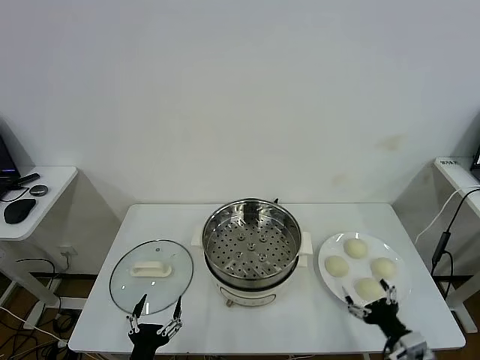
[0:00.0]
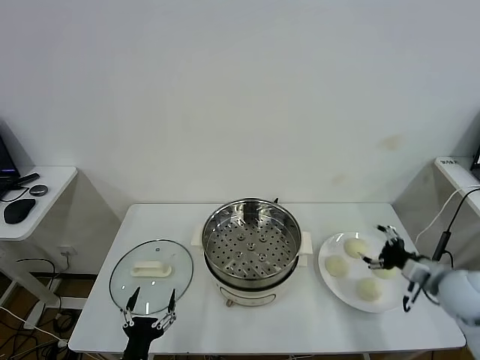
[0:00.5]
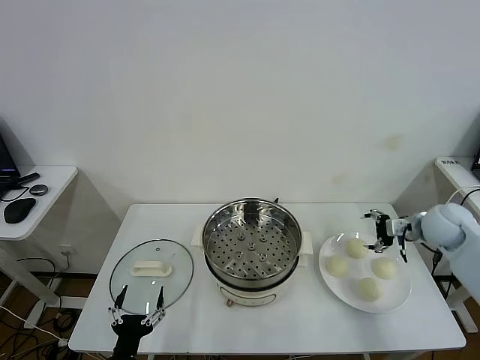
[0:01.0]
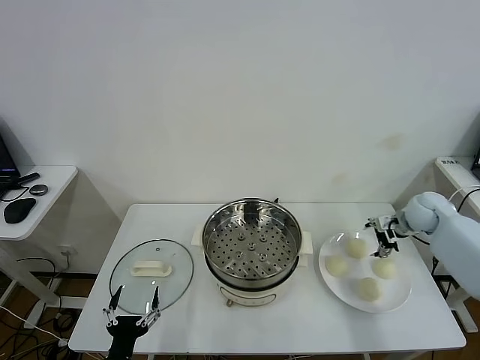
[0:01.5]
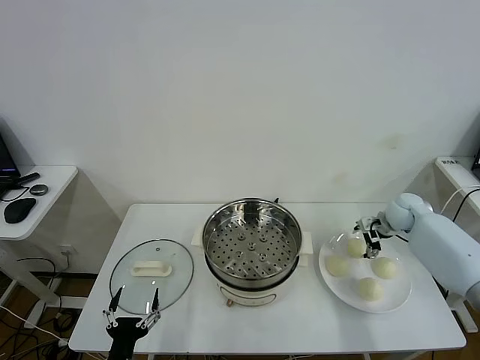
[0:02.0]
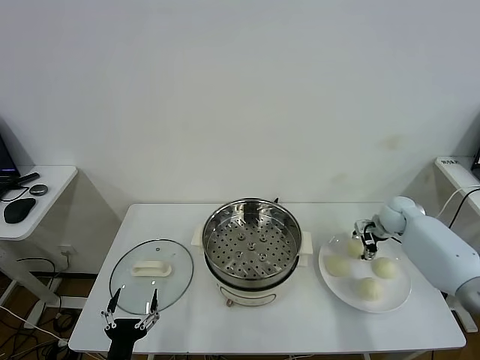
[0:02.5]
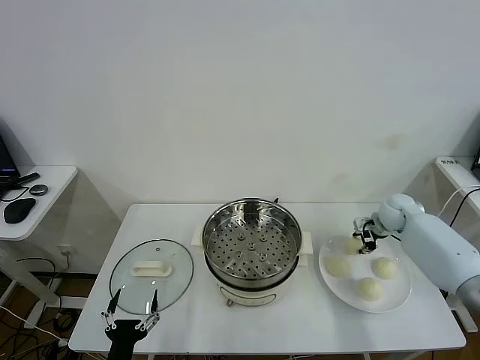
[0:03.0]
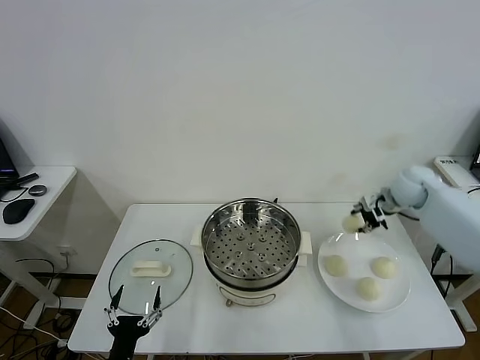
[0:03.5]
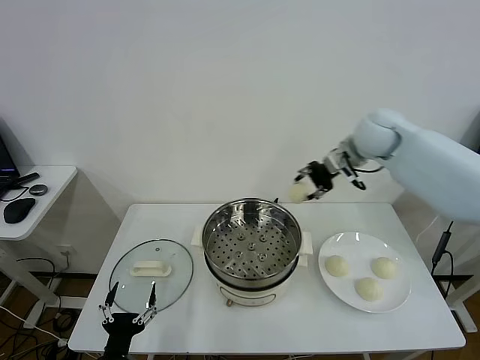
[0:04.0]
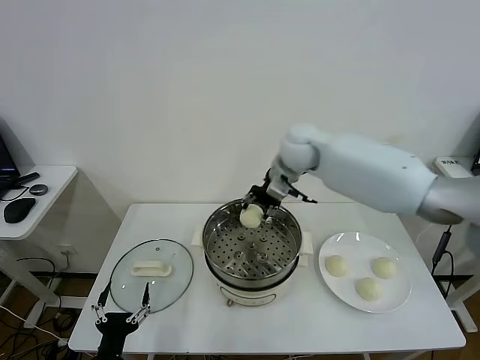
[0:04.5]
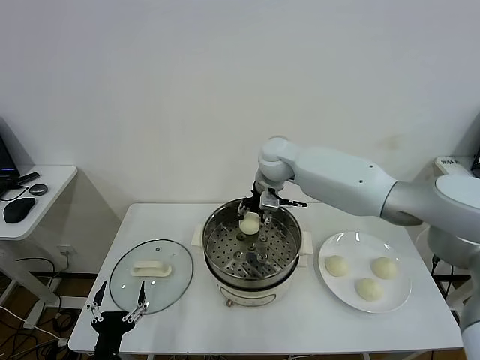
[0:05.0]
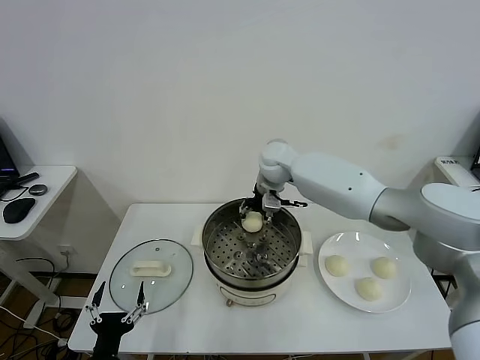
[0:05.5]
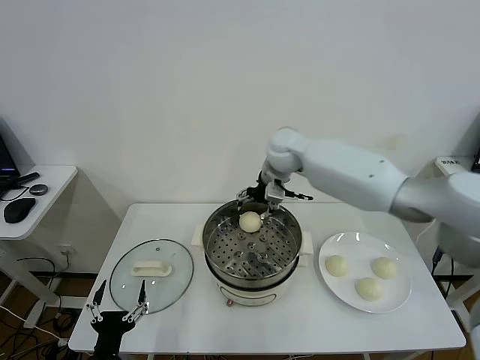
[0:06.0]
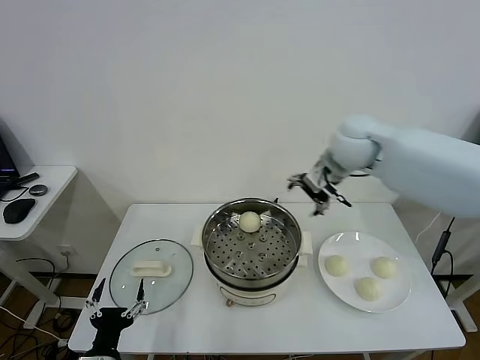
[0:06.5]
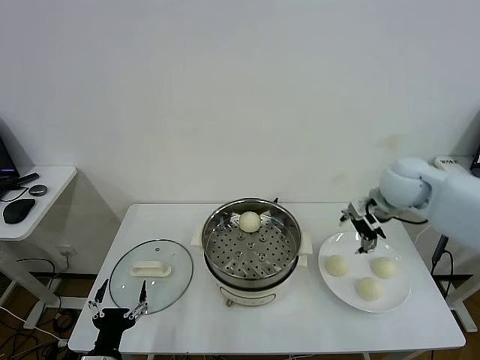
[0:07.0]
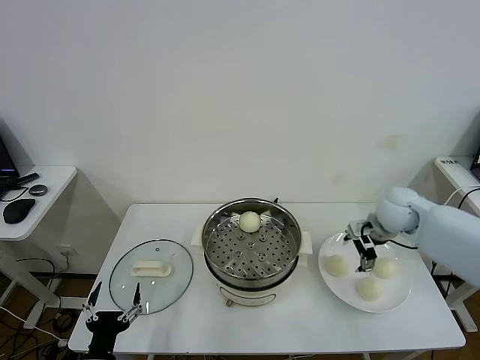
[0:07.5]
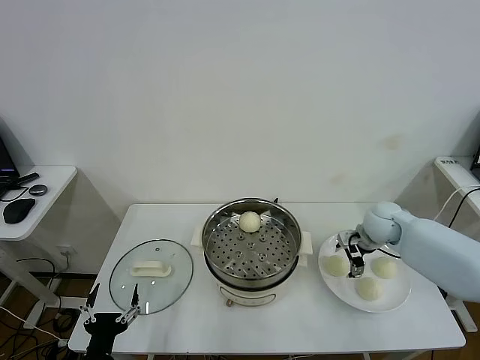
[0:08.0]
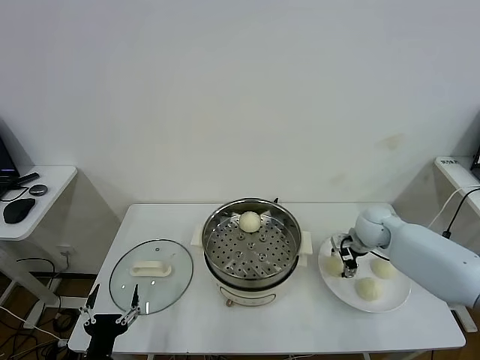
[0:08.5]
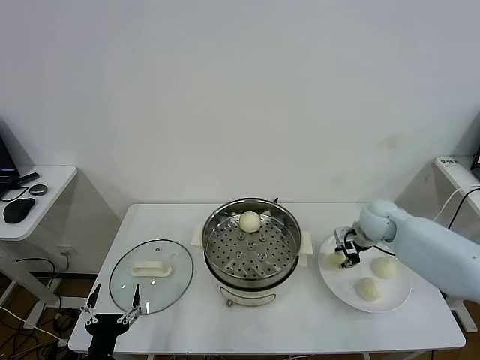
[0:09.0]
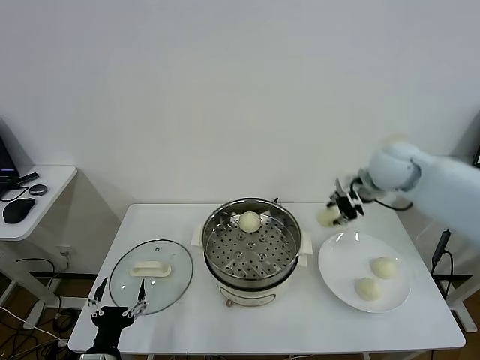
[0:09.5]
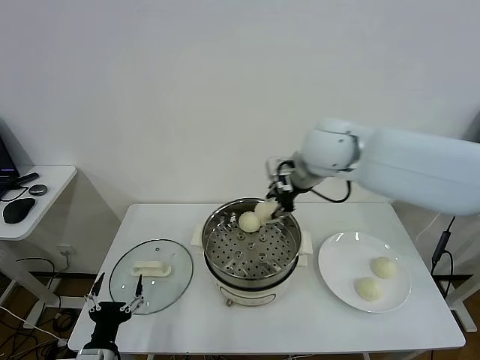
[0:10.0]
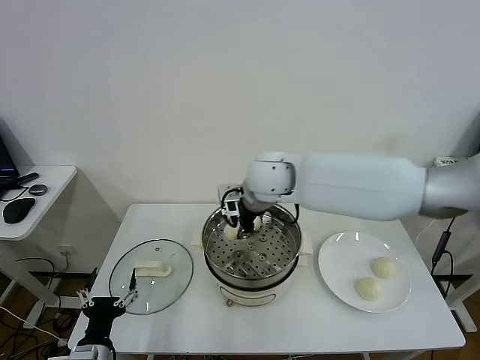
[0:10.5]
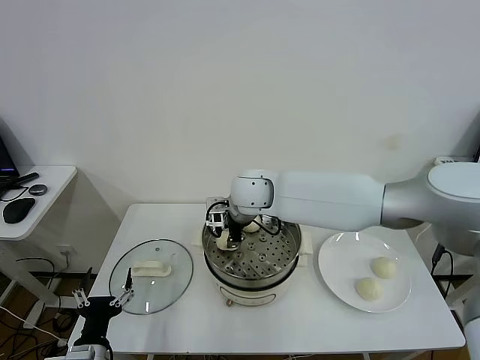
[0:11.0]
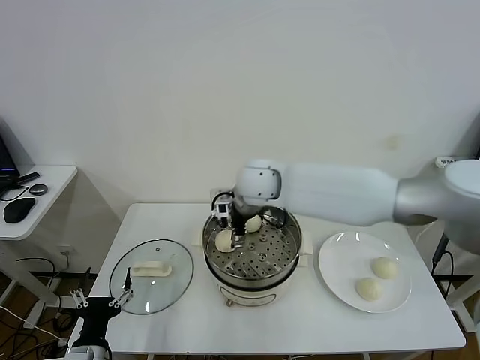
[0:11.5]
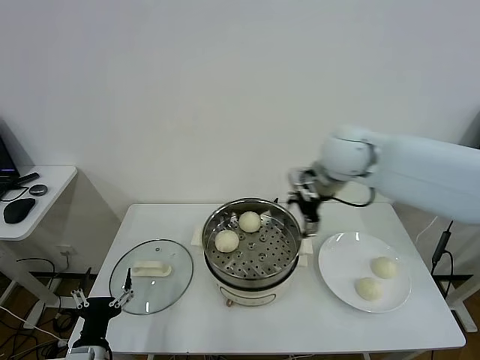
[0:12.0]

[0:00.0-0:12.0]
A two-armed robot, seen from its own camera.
Task of the whole recording: take steamed baozi put them in steamer.
Step, 0:00.0 to 0:02.5: Grasp the baozi in the plate with right gripper.
Step, 0:03.0 to 0:05.5: Place the baozi on the steamer with right gripper.
Step, 0:06.5 to 0:08.5: Grasp the baozi in the plate with right gripper.
Step, 0:09.0 to 0:11.0: Place the baozi on the steamer with right gripper.
0:02.0 to 0:04.0: The right gripper shifts approximately 30 cm upward and to the left, and closes its fingers.
0:04.0 to 0:06.0: The right gripper travels to the left by about 10 cm, and opens up.
0:06.0 to 0:08.0: The right gripper heads to the right and downward, covering roughly 30 cm.
0:08.0 to 0:10.0: The right gripper goes approximately 30 cm upward and to the left, and closes.
0:10.0 to 0:12.0: The right gripper is displaced to the right by about 10 cm, and opens its fingers.

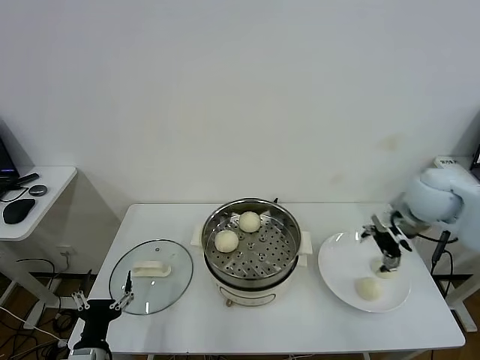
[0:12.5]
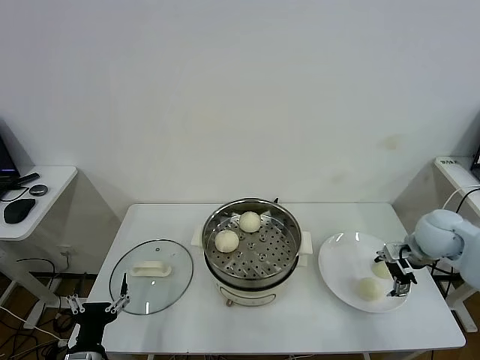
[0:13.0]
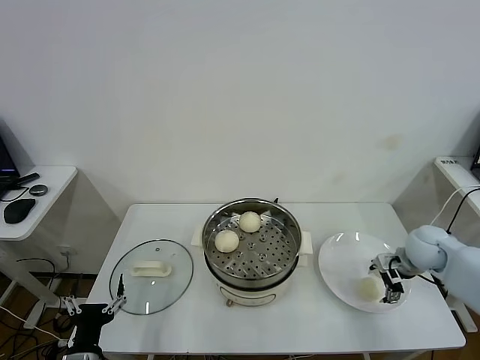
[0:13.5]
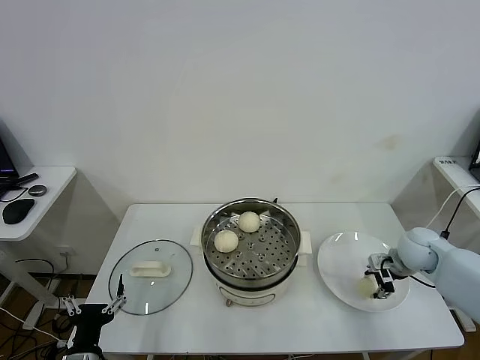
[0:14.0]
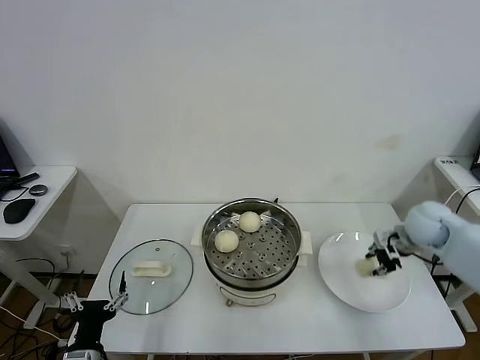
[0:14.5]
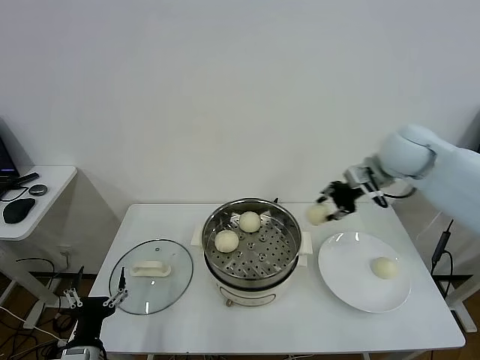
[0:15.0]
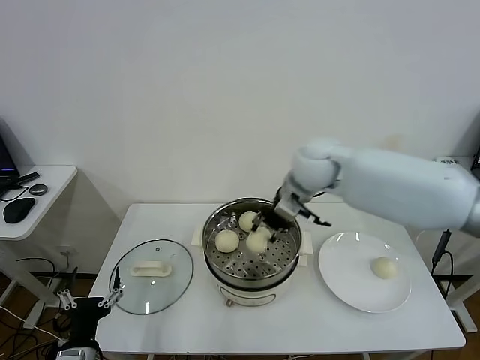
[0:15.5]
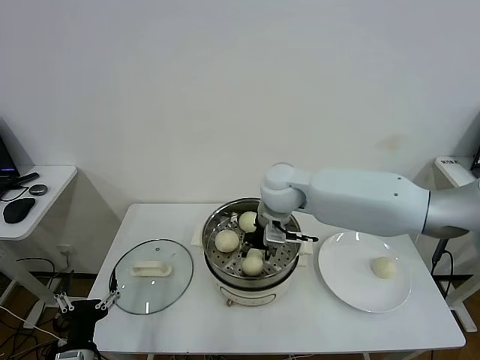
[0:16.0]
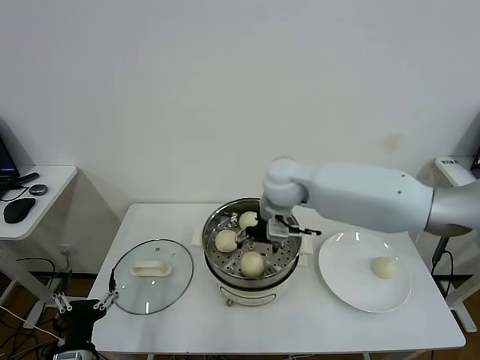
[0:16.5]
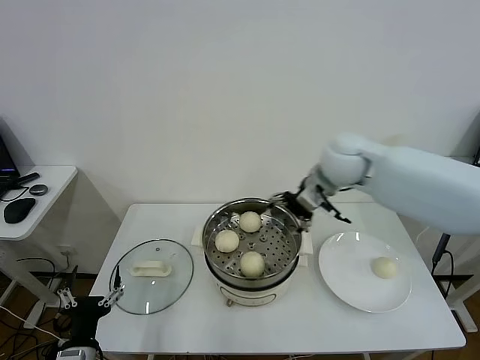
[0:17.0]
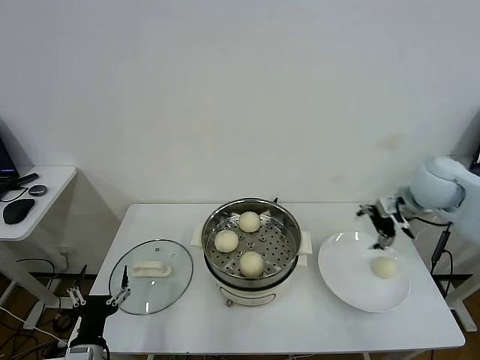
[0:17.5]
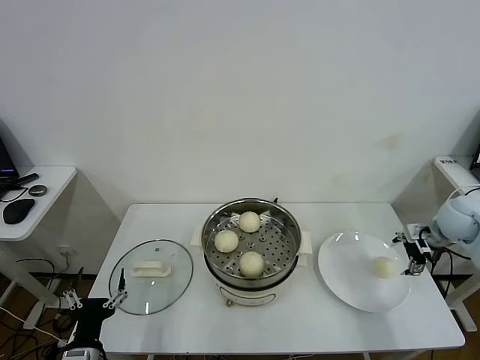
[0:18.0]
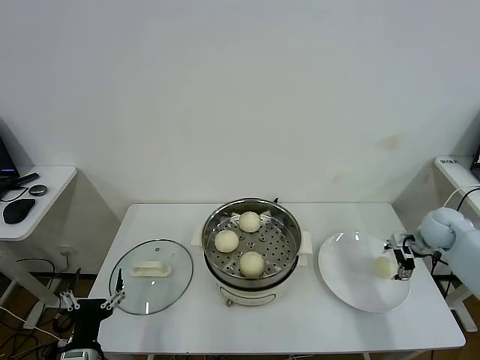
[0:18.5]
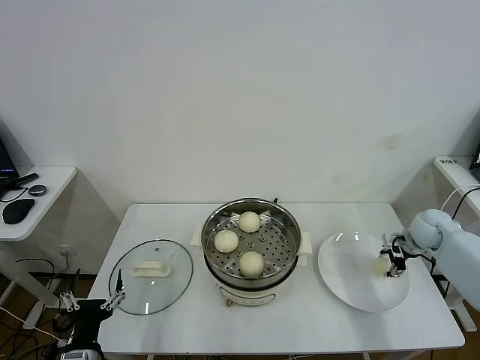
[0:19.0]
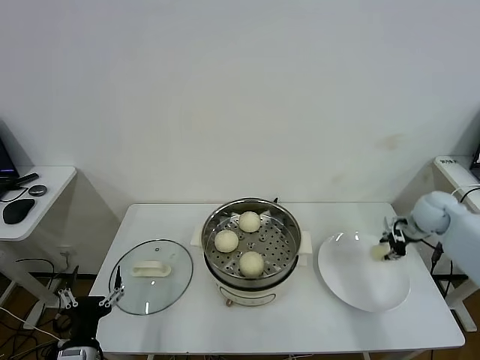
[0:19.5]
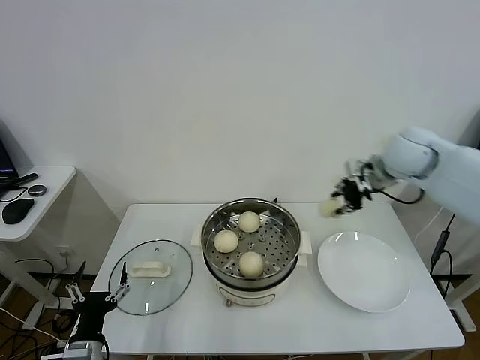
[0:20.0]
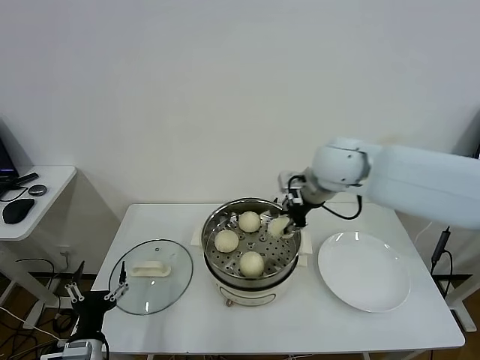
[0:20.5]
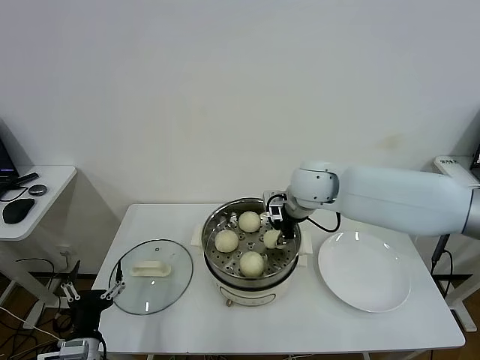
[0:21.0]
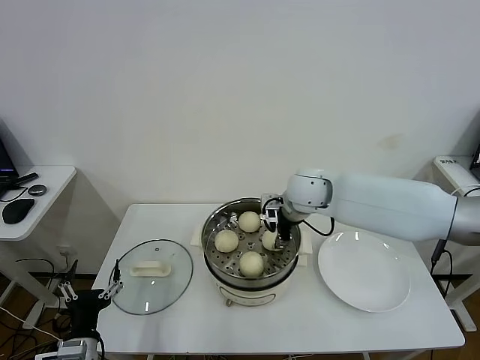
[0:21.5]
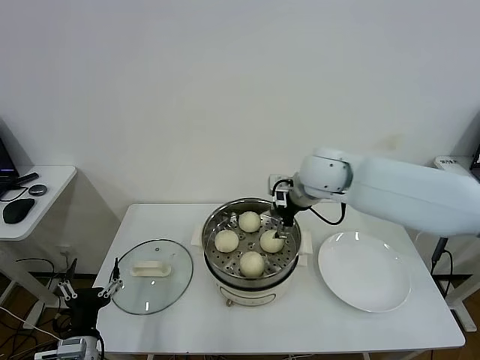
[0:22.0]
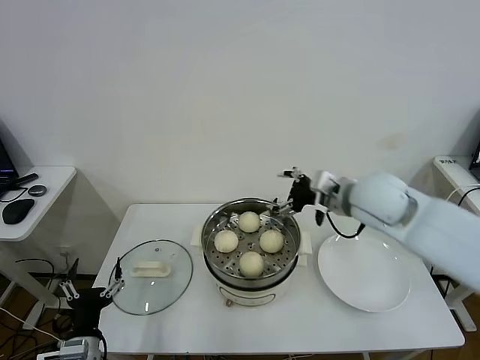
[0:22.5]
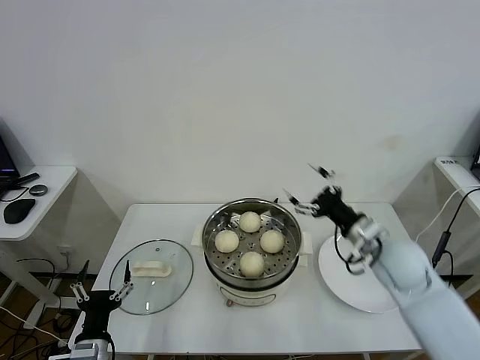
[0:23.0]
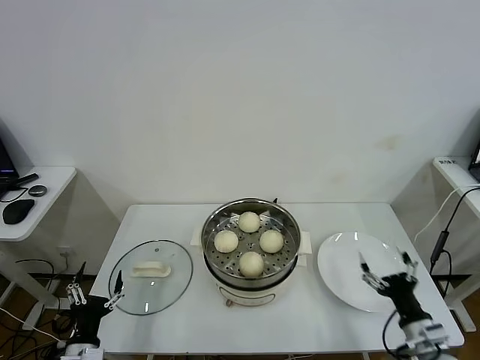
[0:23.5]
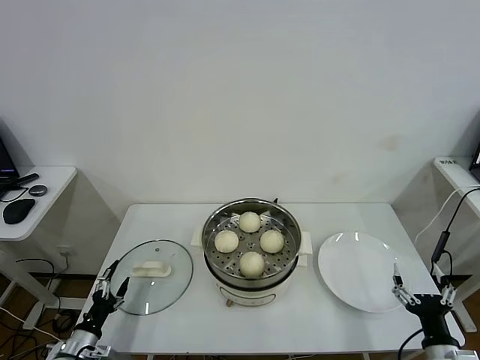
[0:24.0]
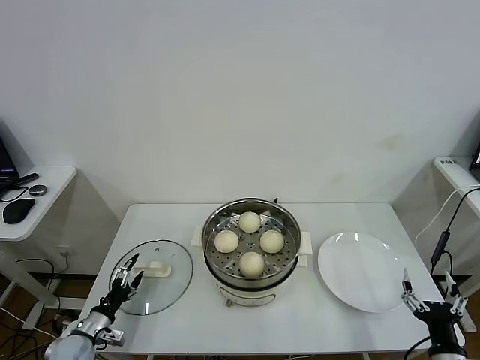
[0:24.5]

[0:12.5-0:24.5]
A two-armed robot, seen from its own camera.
Task of the whole recording: take steamed baozi put them in steamer.
Step, 0:12.5 to 0:14.0: Grasp the baozi in the plate with right gripper.
Step, 0:14.5 to 0:16.5: Place the baozi on the steamer with right gripper.
Step, 0:17.0 to 0:19.0: Grasp the baozi in the plate with right gripper.
Step, 0:19.5 to 0:21.5: Place the baozi on the steamer with right gripper.
0:12.5 to 0:14.5: The right gripper heads downward, covering roughly 5 cm, and closes up.
0:14.5 to 0:16.5: The right gripper is displaced to the left by about 30 cm, and opens.
0:16.5 to 0:18.5: The right gripper is displaced to the right by about 40 cm.
0:18.5 to 0:20.5: The right gripper is displaced to the left and upward by roughly 35 cm, and closes.
0:20.5 to 0:22.5: The right gripper is displaced to the right and backward by roughly 10 cm, and opens.
0:22.5 to 0:24.5: The right gripper is displaced backward, downward and to the right by some 40 cm, while the left gripper is displaced downward, to the left and forward by some 15 cm.

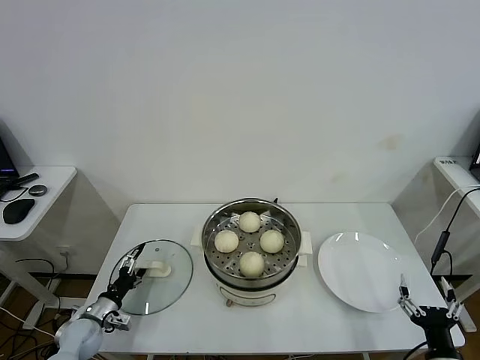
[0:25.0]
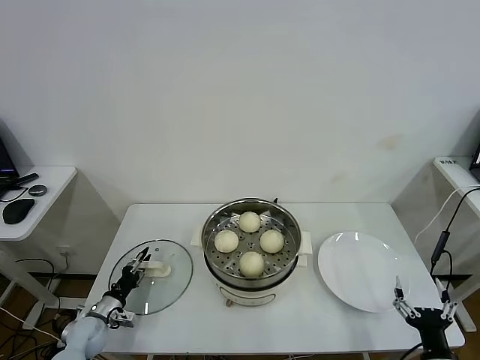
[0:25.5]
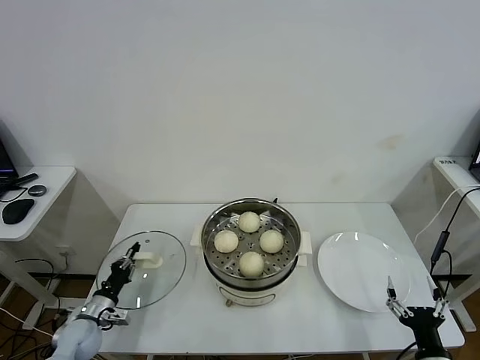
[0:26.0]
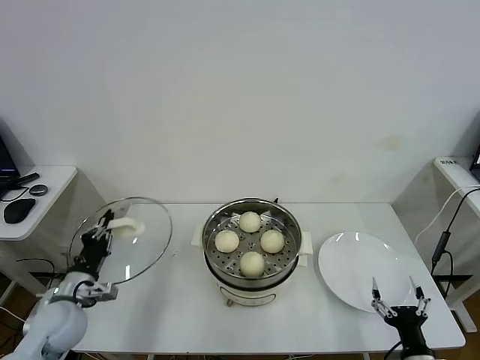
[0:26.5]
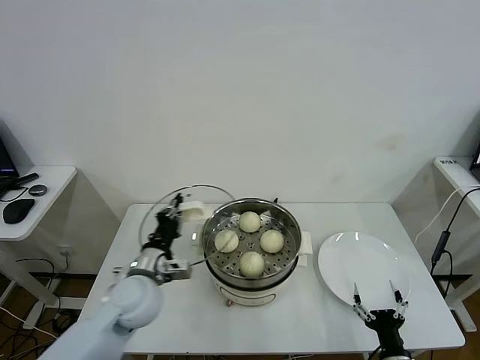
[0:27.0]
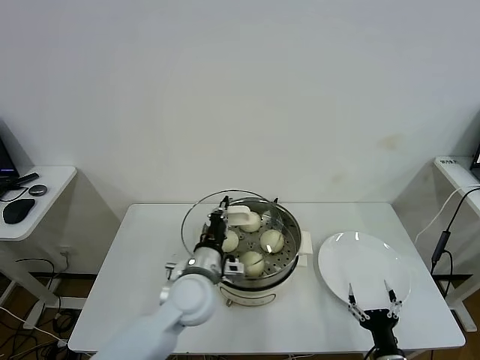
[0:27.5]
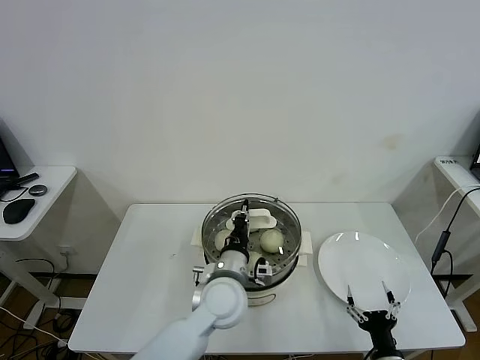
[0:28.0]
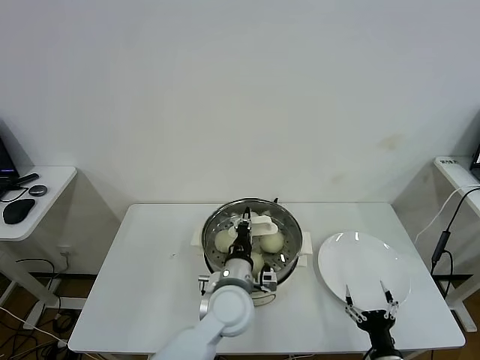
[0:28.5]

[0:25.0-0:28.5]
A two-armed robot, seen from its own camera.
Task of the whole recording: take steamed baozi put them in steamer.
0:25.0 to 0:27.0: The right gripper heads downward and to the left, covering some 10 cm, while the left gripper is displaced upward and to the right by approximately 25 cm, and closes its fingers.
0:27.0 to 0:28.5: The left gripper goes about 20 cm to the right.
